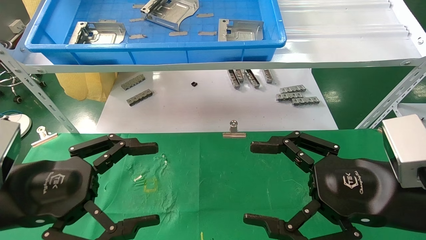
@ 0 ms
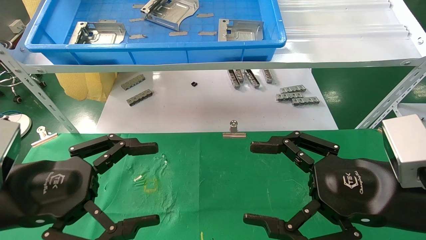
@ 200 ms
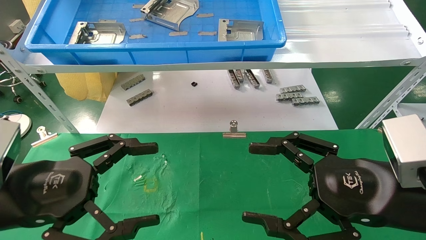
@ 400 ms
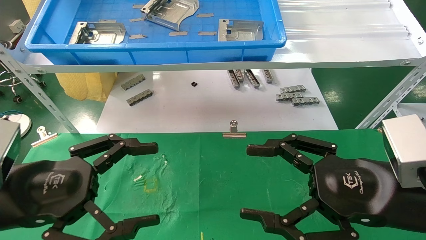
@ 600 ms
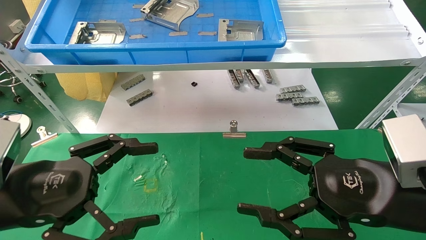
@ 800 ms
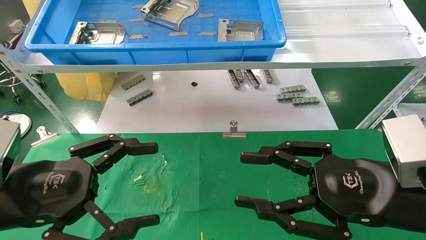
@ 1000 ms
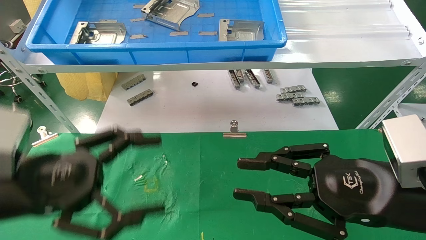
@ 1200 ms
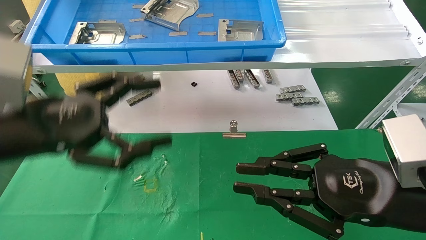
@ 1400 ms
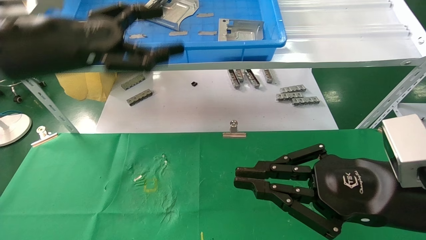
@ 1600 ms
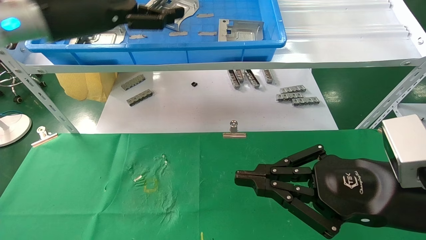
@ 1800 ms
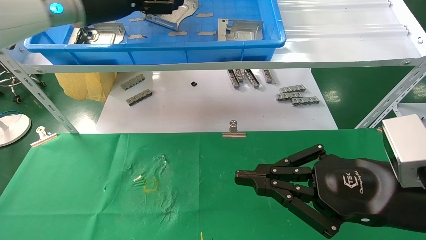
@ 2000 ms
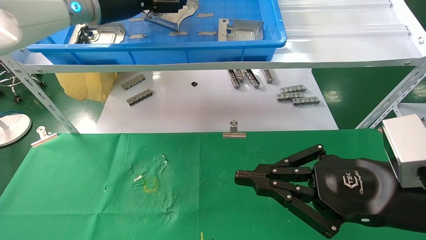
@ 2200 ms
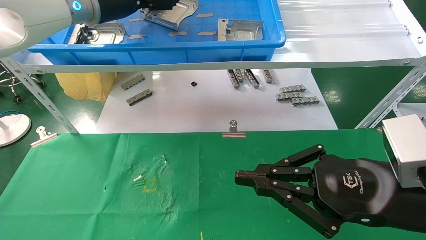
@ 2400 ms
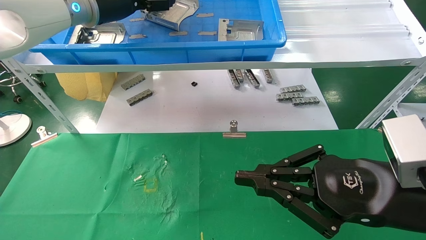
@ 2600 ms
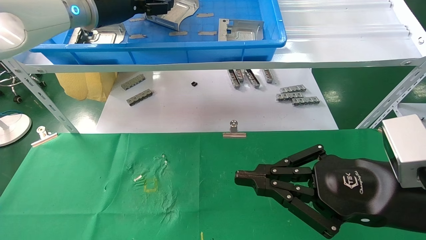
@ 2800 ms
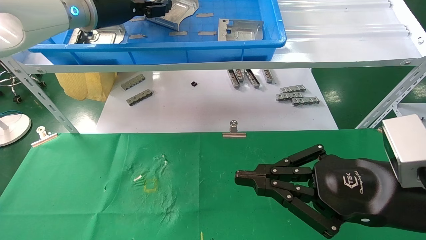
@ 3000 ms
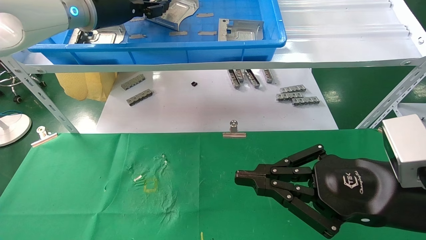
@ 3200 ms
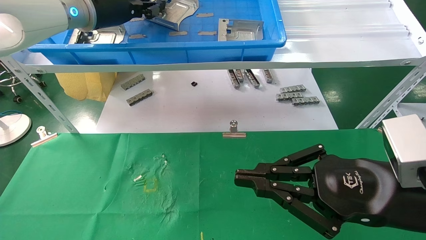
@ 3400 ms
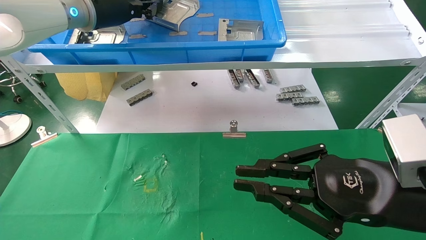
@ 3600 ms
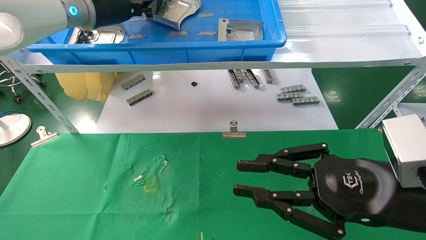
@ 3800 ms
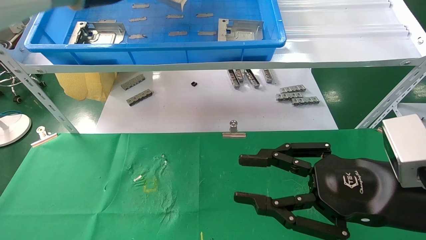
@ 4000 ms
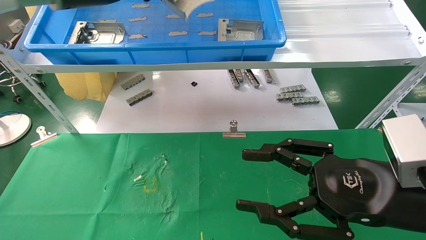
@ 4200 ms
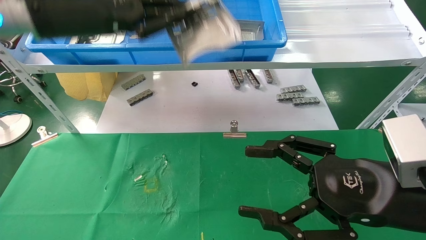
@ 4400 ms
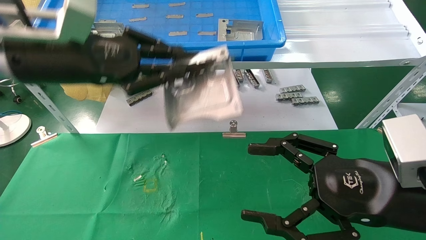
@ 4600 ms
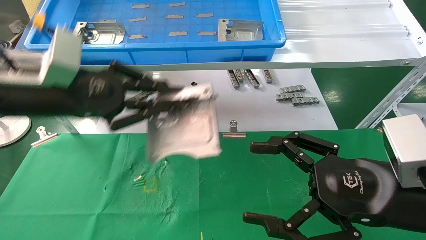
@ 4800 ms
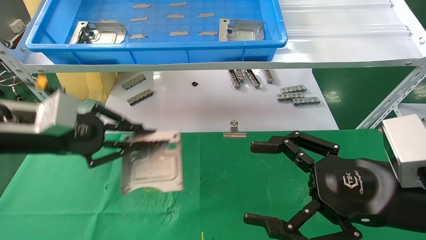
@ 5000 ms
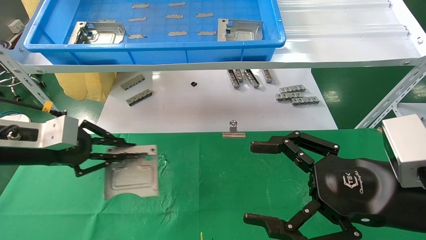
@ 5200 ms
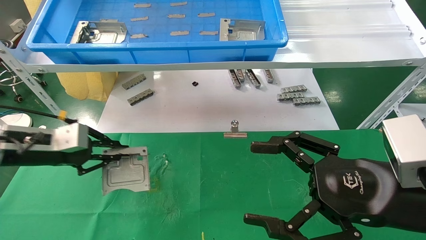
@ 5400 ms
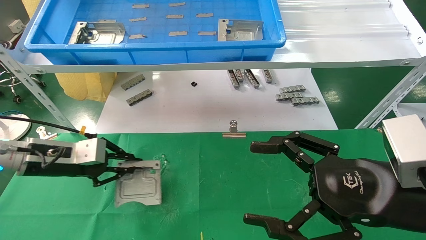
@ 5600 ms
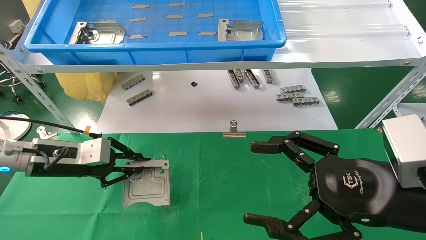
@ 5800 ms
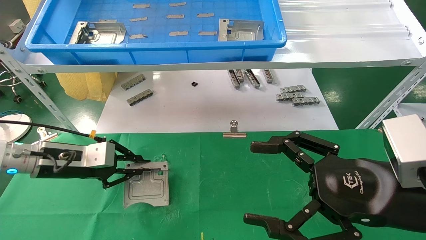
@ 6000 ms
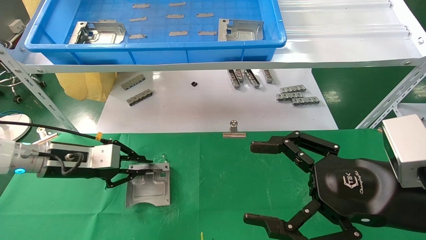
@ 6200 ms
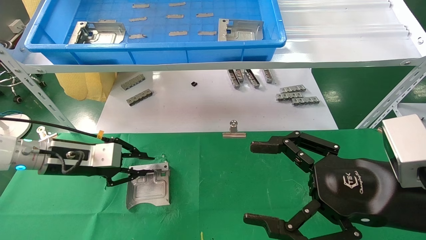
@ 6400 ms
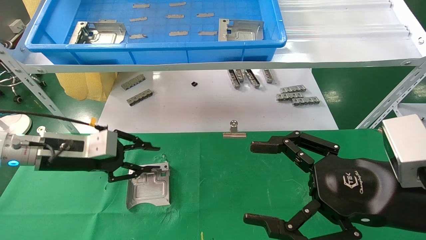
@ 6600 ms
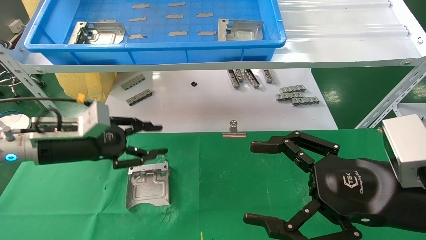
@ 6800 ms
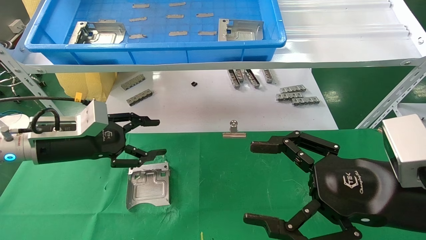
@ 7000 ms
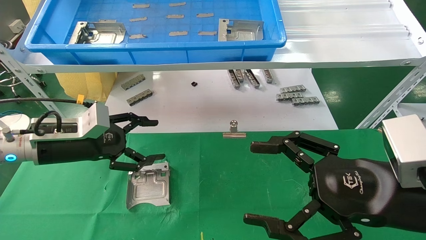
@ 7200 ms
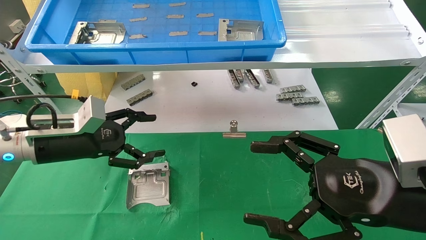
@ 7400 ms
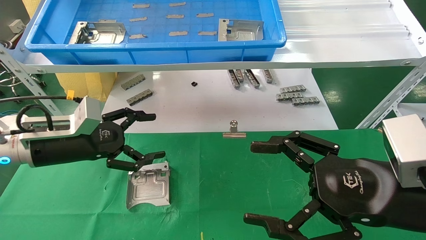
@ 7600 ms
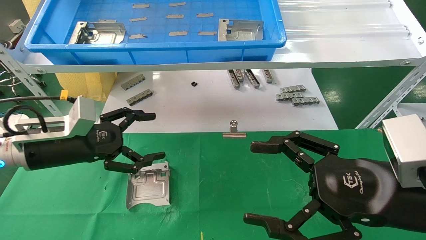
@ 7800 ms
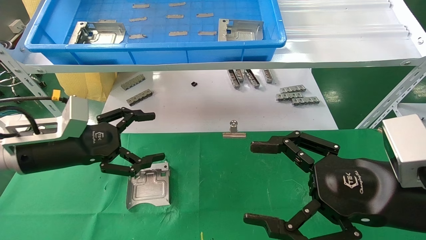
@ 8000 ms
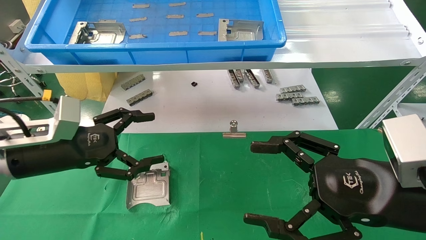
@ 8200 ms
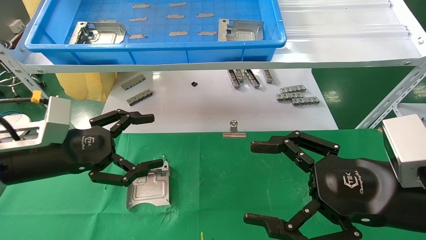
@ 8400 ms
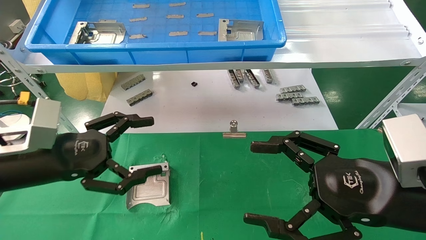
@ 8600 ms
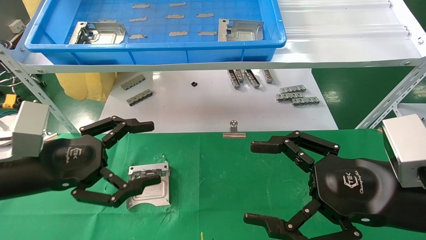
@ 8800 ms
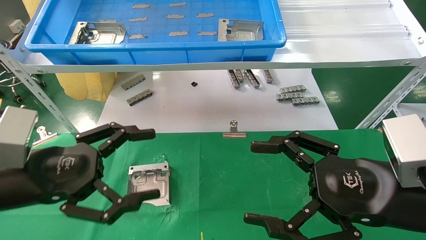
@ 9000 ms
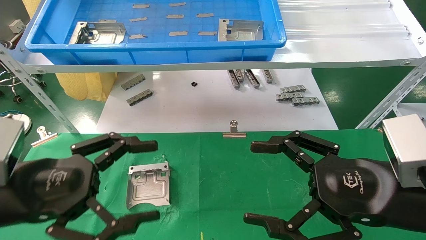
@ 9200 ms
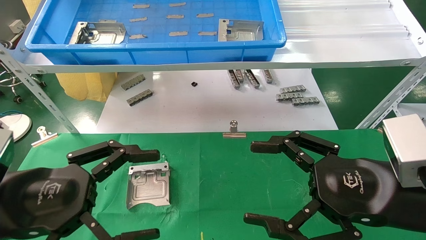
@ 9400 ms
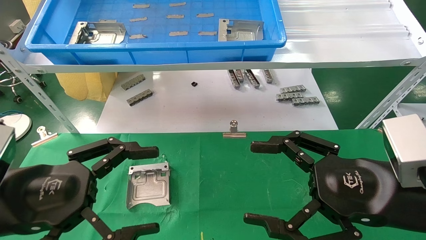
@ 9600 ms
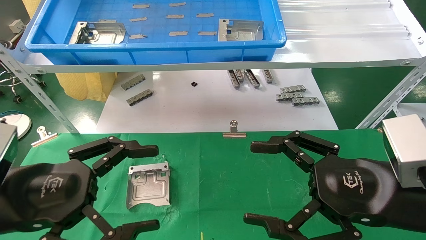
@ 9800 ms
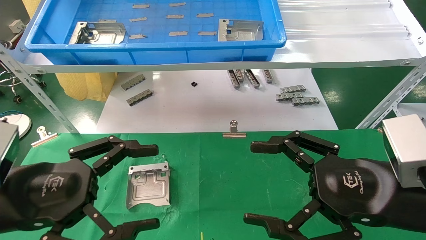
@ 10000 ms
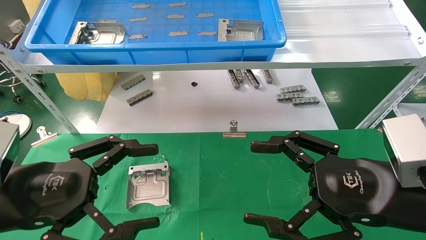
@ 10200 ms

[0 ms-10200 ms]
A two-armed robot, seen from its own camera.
Task of the whole recording: use the mechanical arm to pick up the parts and place them on the table.
Step, 1800 ms to 5200 ms: Pick up the hard drive bracket from the feeding area.
Step, 5400 ms to 8800 ms: Place the hard drive bracket into the box.
0 ms to 1400 ms: The right gripper closes its fingers. The left gripper travels upward and forward by about 10 cm.
1400 ms to 3000 ms: The left gripper is displaced forward and upward by some 25 cm.
3000 ms to 4400 ms: The left gripper shifts some 10 cm backward, and closes its fingers. Meanwhile the right gripper opens up.
4400 ms to 5800 ms: The left gripper shifts approximately 25 cm downward and to the left.
5800 ms to 7200 ms: The left gripper opens.
7200 ms to 8800 ms: The left gripper goes approximately 10 cm backward.
8800 ms to 10200 ms: The left gripper heads backward, covering some 5 cm.

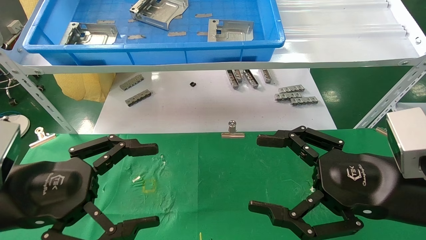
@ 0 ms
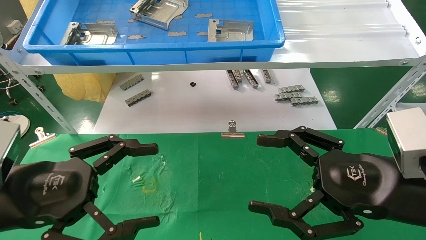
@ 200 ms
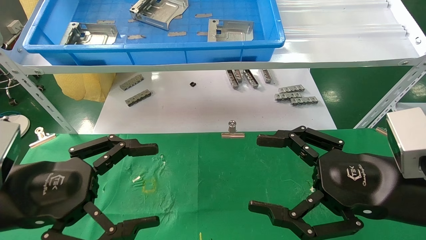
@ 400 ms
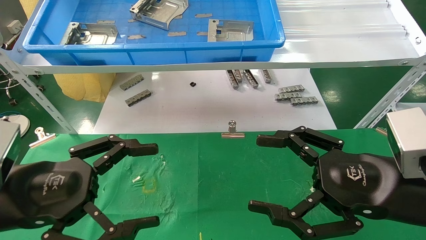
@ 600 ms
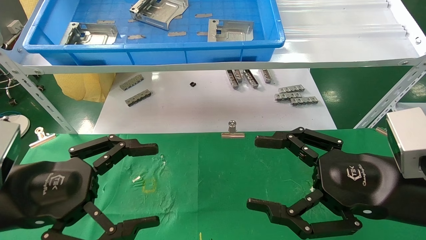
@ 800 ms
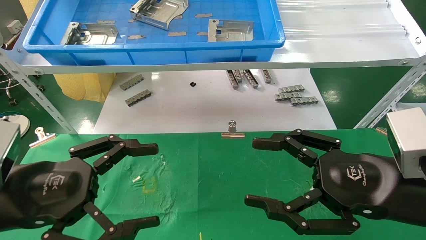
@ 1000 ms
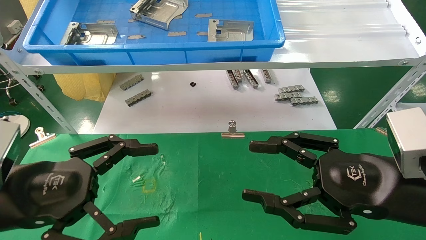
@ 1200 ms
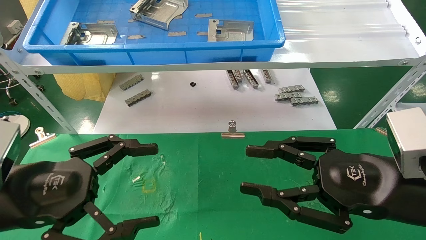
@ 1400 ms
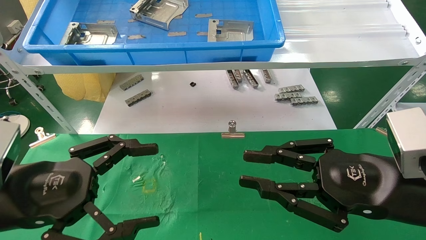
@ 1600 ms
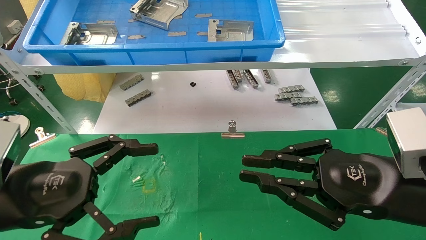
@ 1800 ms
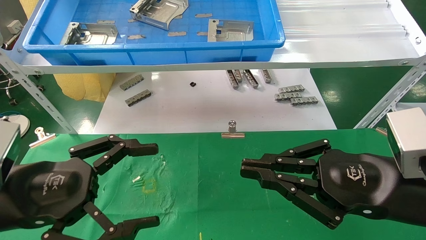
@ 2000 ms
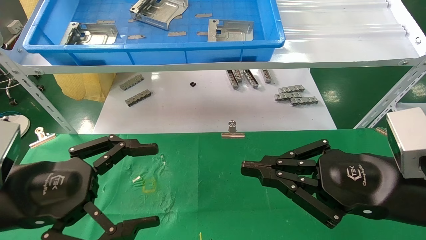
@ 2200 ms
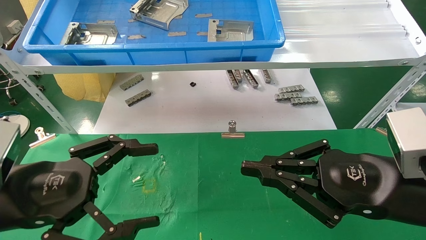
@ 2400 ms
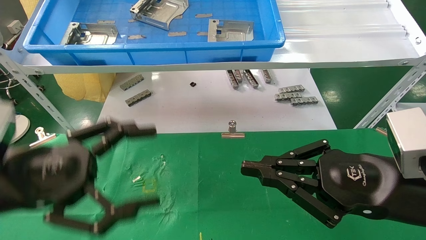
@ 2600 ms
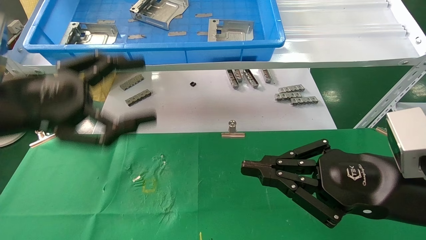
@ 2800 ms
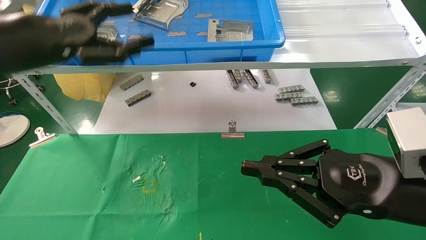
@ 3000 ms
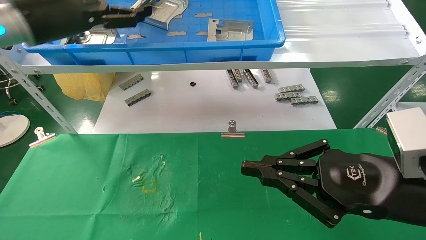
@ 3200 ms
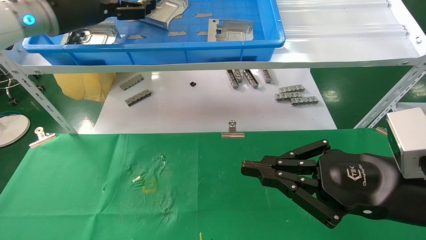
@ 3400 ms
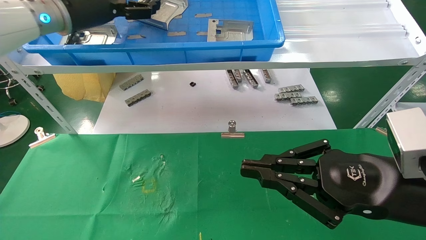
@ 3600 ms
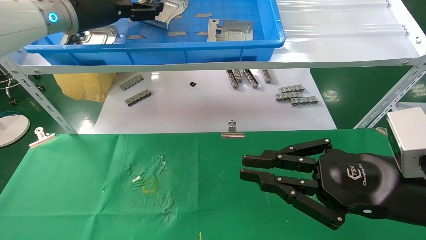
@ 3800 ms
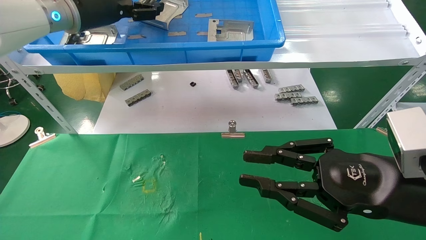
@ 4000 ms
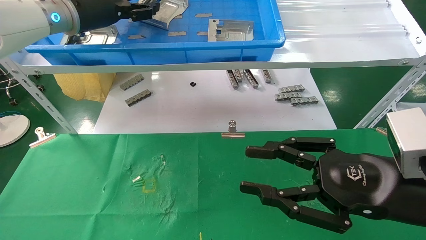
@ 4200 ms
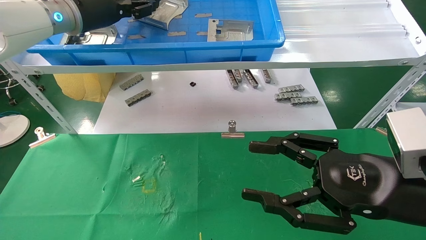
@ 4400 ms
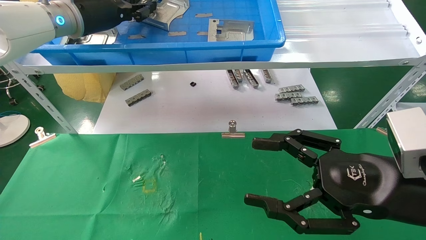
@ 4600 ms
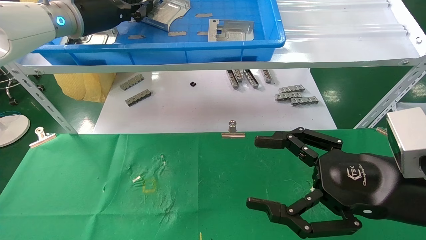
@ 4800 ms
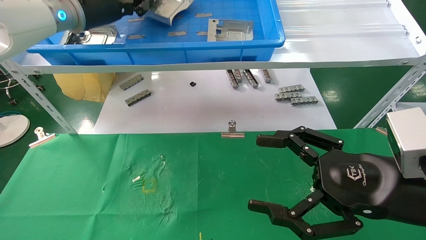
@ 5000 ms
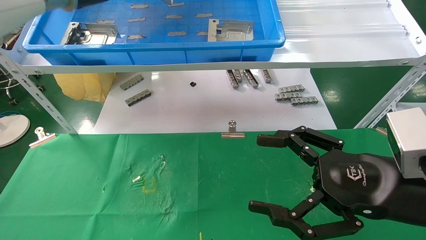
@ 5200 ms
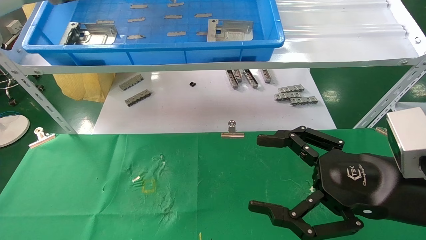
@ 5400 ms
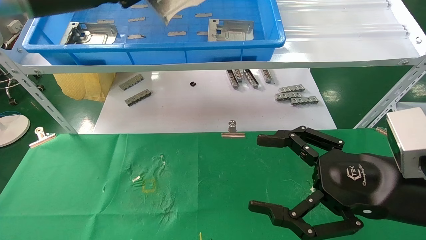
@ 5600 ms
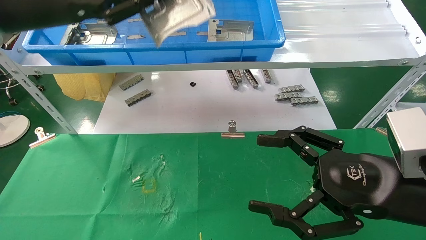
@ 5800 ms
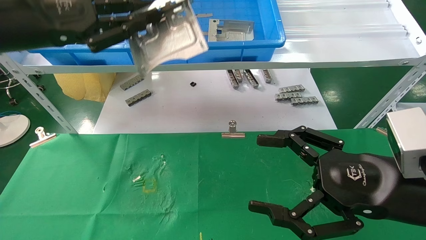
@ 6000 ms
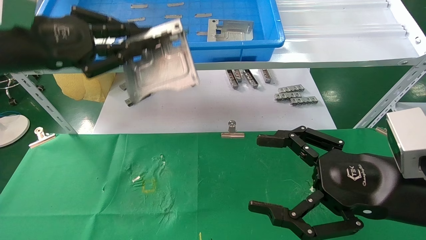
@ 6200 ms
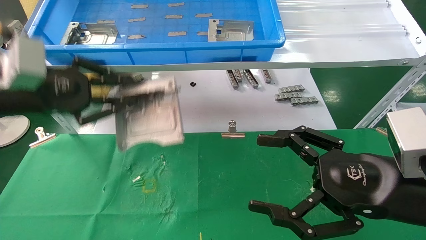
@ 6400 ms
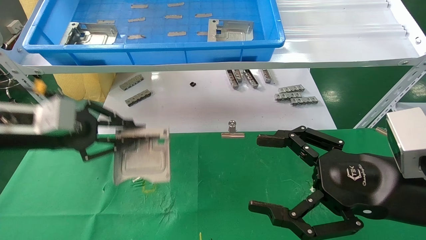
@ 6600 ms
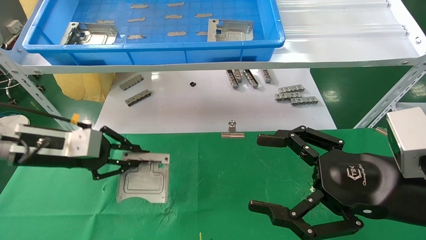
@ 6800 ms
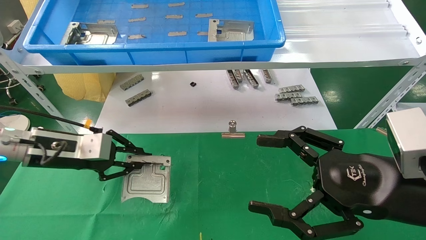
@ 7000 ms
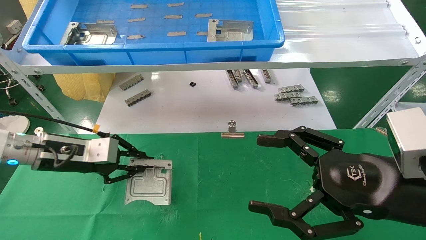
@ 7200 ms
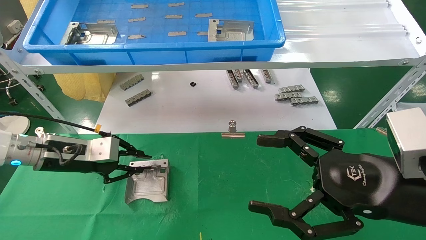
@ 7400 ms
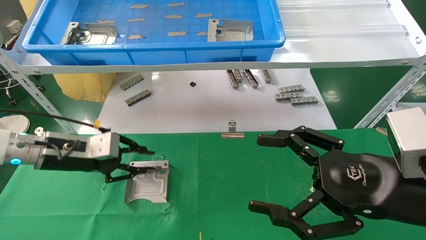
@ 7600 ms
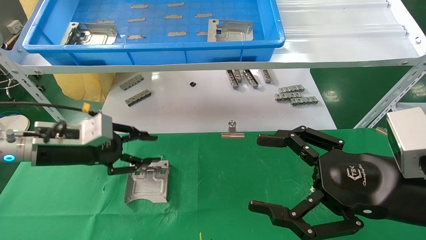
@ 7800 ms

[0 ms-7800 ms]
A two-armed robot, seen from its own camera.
Task of the whole recording: use the mechanical arm to pick up the parts and place them on the table.
Step, 2800 ms to 4800 ms: Pick up the hard drive bracket from the feeding area.
0 ms to 1600 ms: The right gripper closes its fingers.
1600 ms to 3200 ms: The left gripper goes roughly 30 cm upward and forward, while the right gripper closes its fingers.
3200 ms to 4600 ms: The left gripper shifts approximately 5 cm forward, and closes up; the right gripper opens up.
4600 ms to 6200 ms: The left gripper moves backward, to the left and downward, approximately 15 cm.
6200 ms to 7800 ms: The left gripper shifts roughly 15 cm downward.
